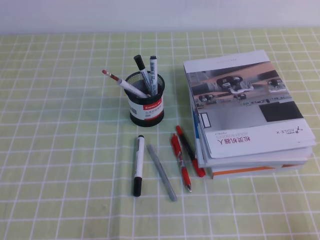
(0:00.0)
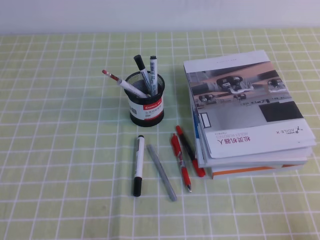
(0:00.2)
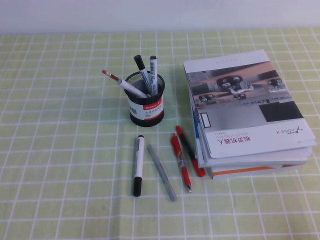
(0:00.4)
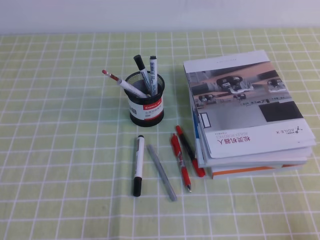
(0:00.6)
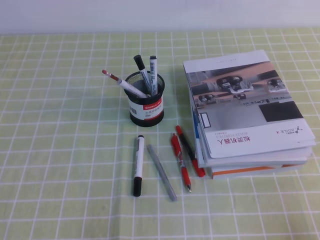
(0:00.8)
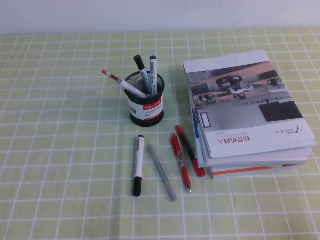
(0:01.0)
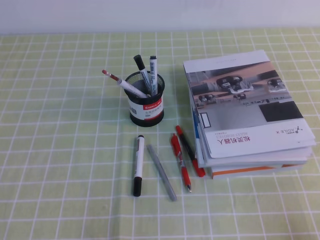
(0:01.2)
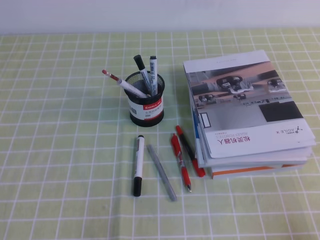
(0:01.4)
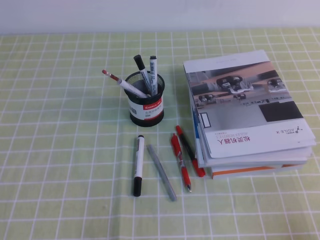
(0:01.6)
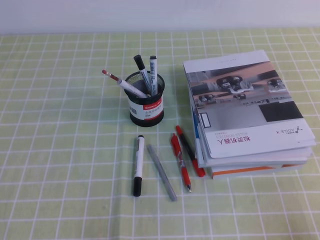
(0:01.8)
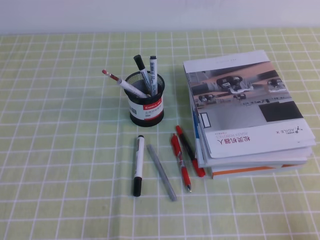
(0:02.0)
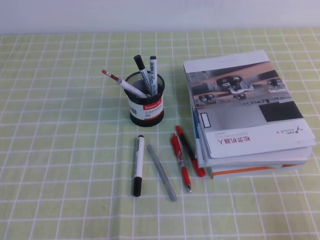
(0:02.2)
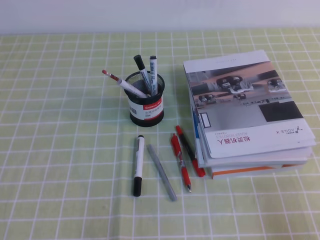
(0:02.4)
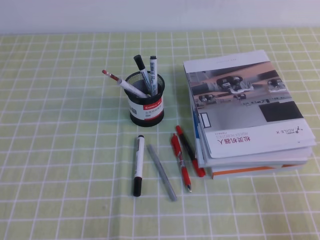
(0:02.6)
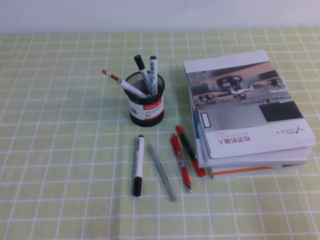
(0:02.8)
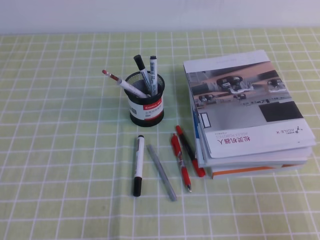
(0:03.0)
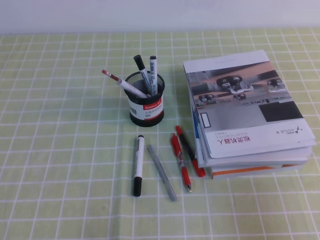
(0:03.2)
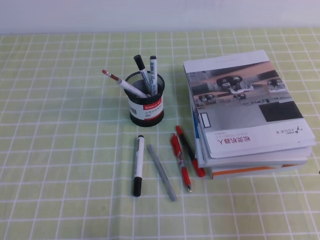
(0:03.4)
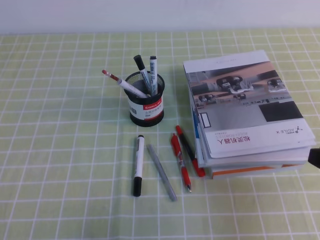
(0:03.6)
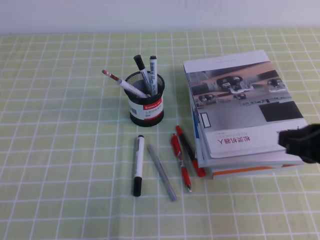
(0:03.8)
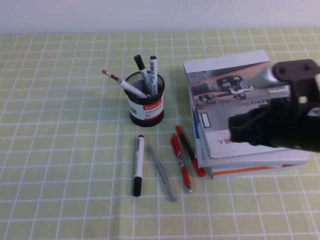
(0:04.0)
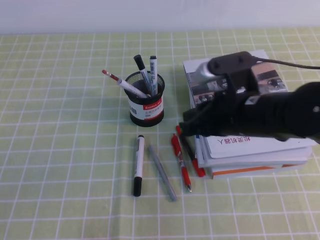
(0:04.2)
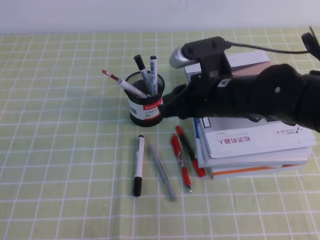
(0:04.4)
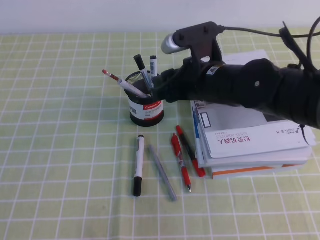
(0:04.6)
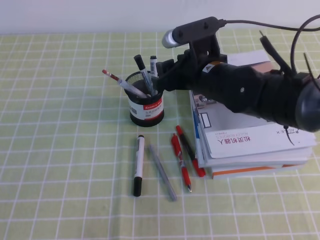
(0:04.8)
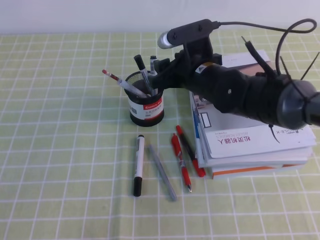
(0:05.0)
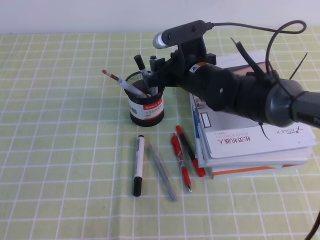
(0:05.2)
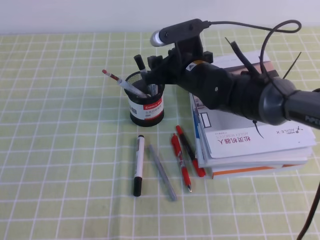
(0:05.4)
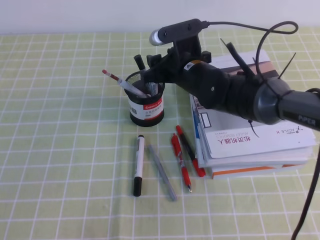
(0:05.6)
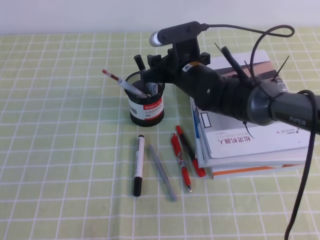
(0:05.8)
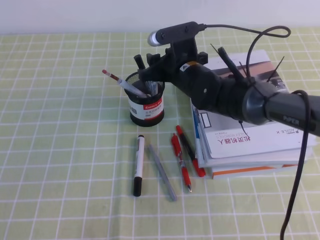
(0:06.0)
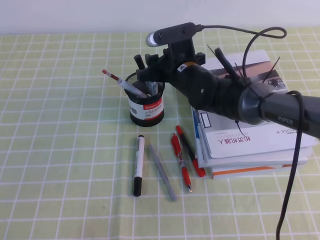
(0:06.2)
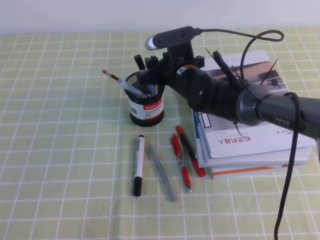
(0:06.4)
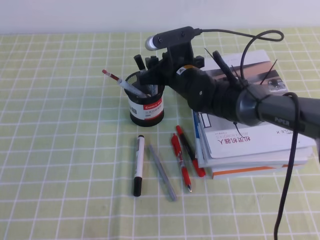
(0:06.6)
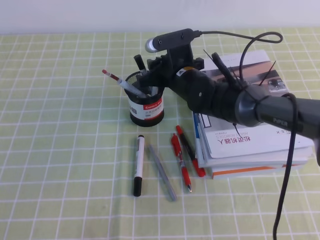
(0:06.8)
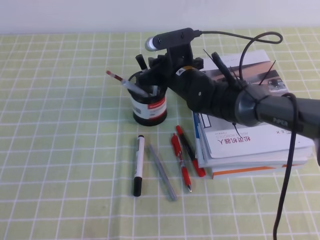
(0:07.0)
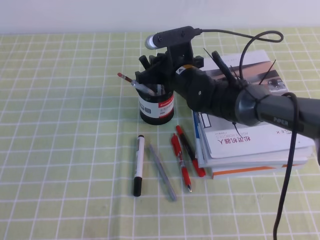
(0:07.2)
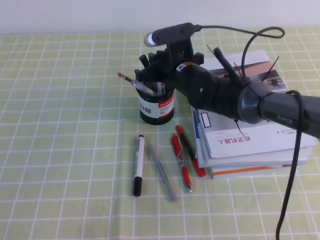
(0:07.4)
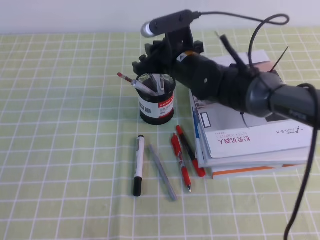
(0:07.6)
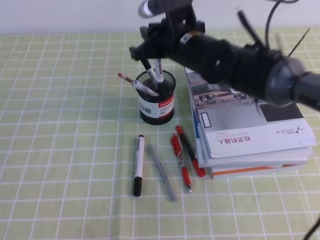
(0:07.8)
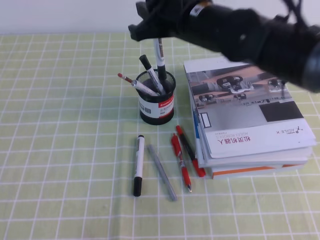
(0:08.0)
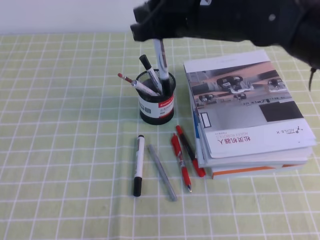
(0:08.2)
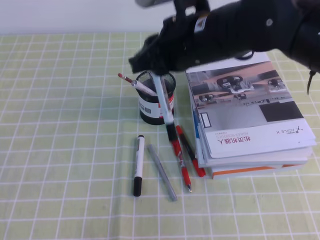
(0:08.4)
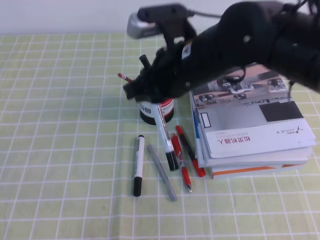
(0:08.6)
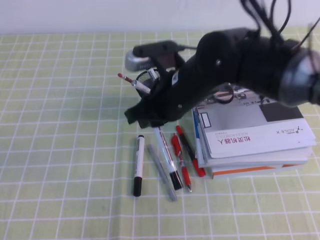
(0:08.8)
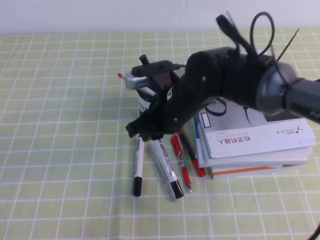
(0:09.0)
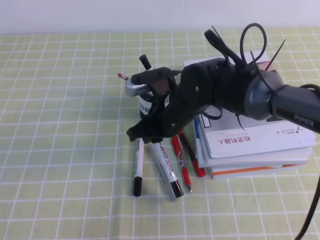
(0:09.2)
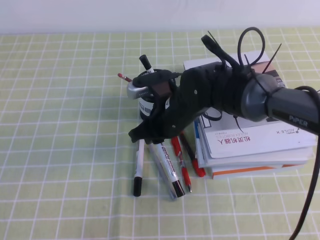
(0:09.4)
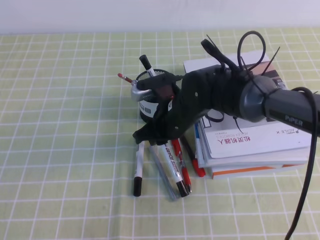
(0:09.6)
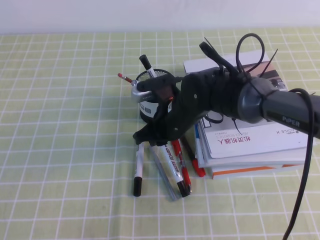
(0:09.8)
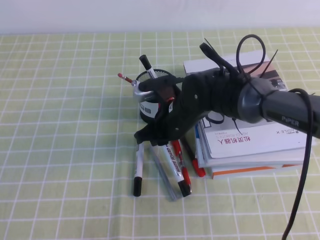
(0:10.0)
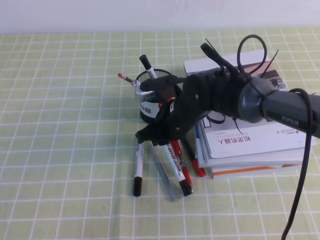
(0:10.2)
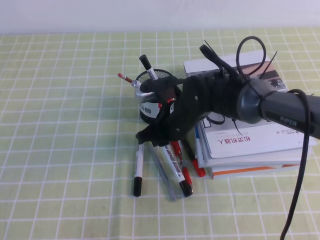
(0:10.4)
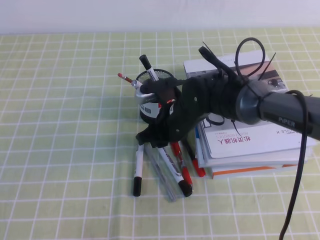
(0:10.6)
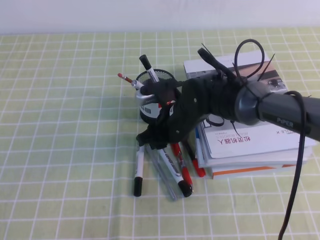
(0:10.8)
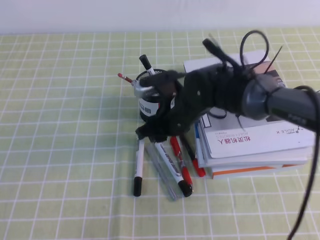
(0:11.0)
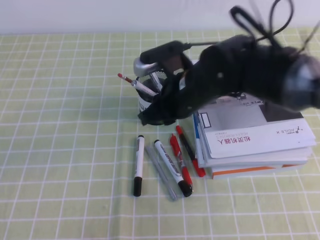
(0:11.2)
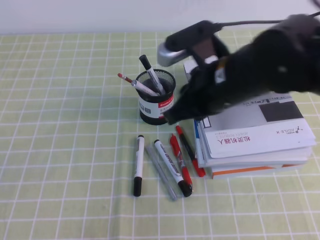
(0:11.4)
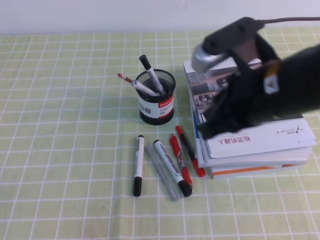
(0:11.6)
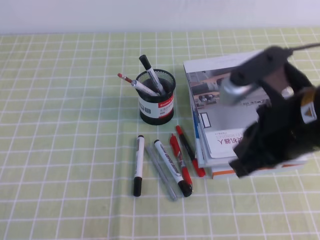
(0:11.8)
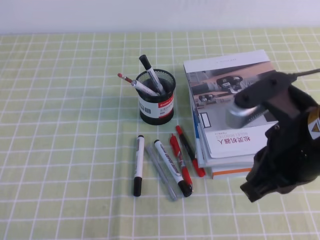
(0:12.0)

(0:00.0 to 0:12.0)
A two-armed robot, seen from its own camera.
0:00.0 - 0:01.6: Neither gripper changes place.
0:03.0 - 0:04.4: The right gripper goes some 30 cm forward and to the left.
0:04.4 - 0:06.0: The right gripper goes some 15 cm forward and to the left, and opens its fingers.
0:06.0 - 0:07.6: The right gripper closes up.
0:07.6 - 0:09.0: The right gripper shifts roughly 10 cm backward, and goes upward and returns, about 10 cm each way.
0:09.0 - 0:10.4: The right gripper moves downward, approximately 5 cm.
0:10.4 - 0:12.0: The right gripper shifts roughly 25 cm backward, upward and to the right.

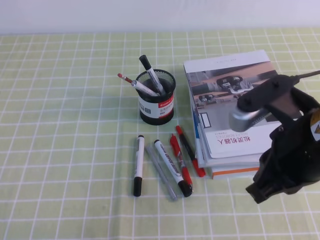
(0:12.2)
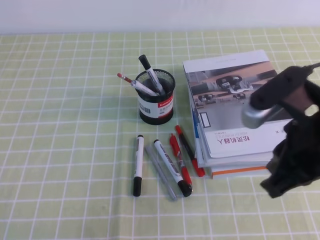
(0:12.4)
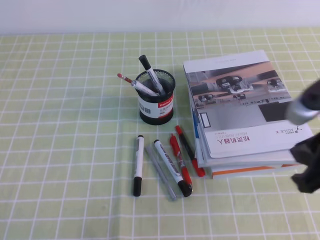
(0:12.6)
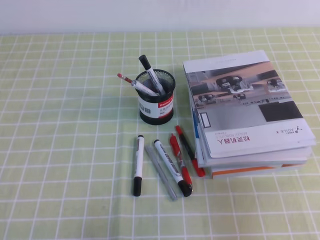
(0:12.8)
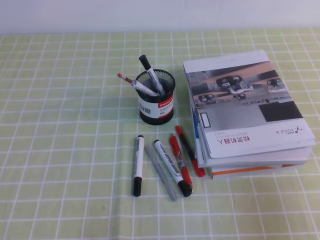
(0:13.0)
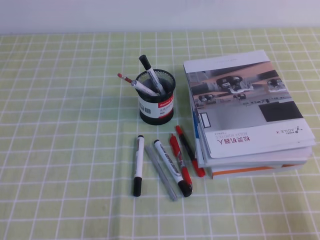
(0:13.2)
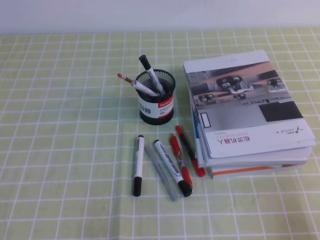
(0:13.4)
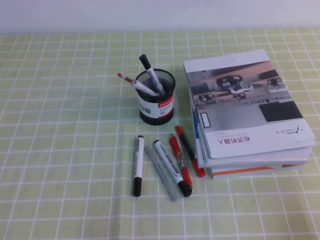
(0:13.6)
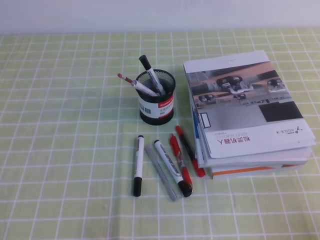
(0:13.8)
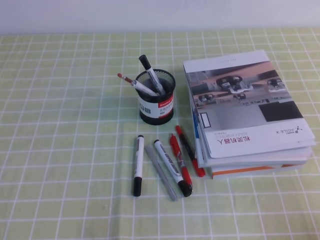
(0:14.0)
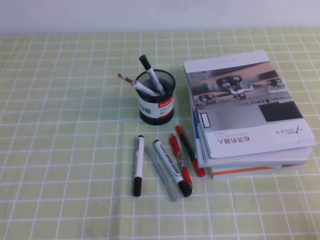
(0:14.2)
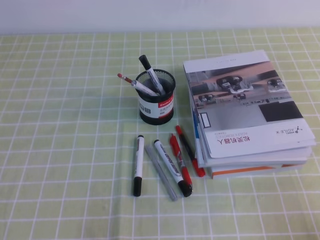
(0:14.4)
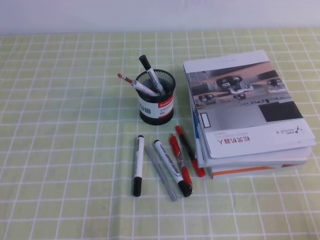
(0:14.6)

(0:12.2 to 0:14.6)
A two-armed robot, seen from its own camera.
Step, 0:12.2 - 0:14.6: Pick up the pen from the pen holder.
0:12.2 - 0:13.4: The right gripper moves to the right, downward and backward, some 25 cm.
